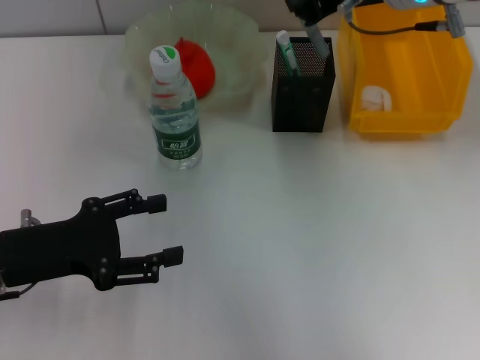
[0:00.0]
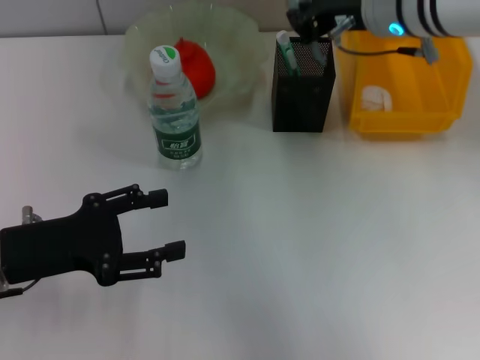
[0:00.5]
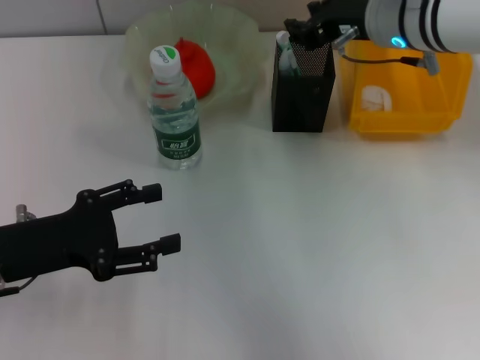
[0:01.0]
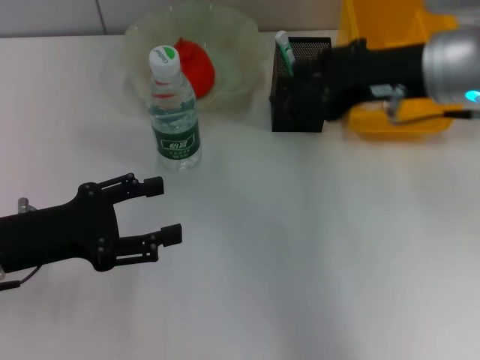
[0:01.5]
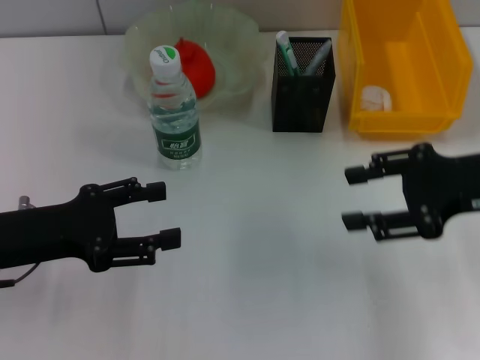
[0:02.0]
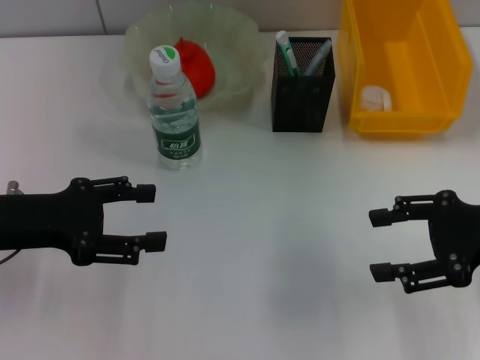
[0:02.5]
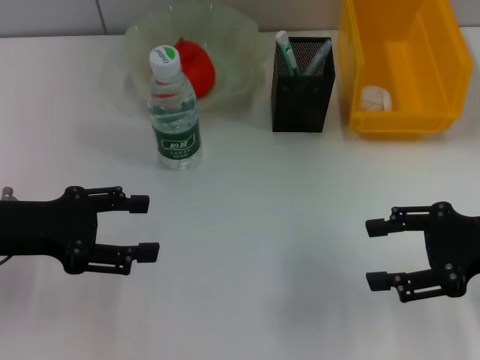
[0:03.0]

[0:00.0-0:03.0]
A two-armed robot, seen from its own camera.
0:00.0 to 0:01.5: The right gripper moves backward and to the right, some 10 cm, and opens up.
0:01.5 to 0:03.0: The right gripper travels to the right, downward and backward by roughly 15 cm.
